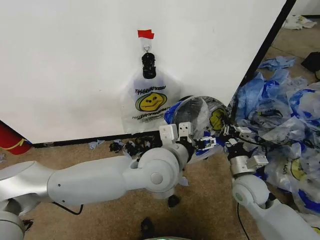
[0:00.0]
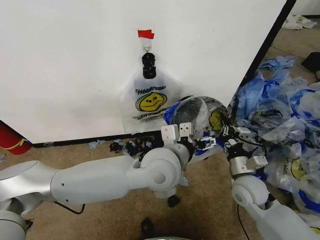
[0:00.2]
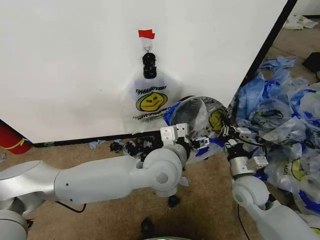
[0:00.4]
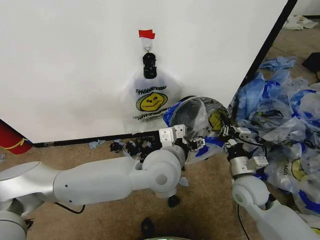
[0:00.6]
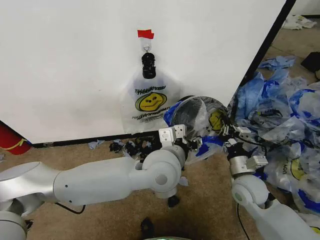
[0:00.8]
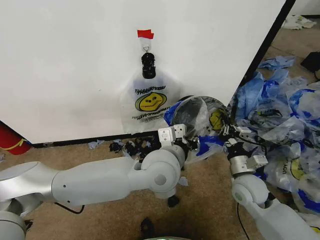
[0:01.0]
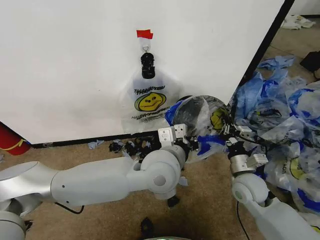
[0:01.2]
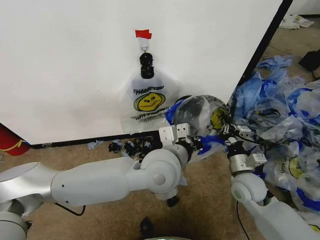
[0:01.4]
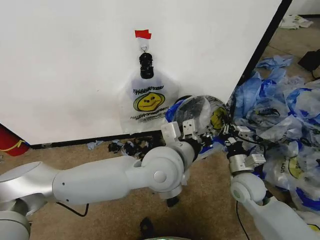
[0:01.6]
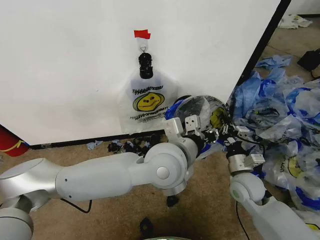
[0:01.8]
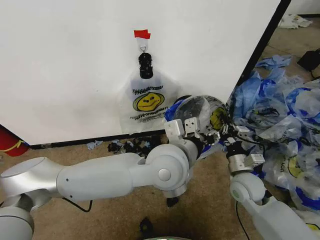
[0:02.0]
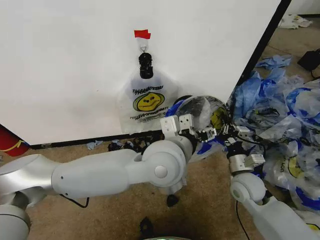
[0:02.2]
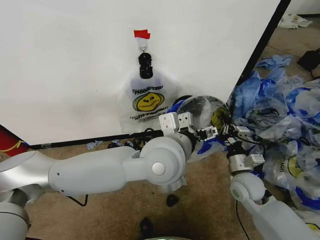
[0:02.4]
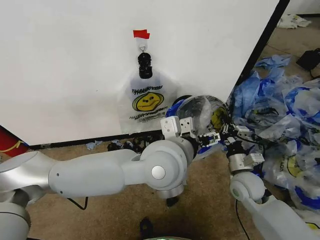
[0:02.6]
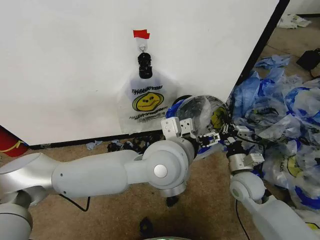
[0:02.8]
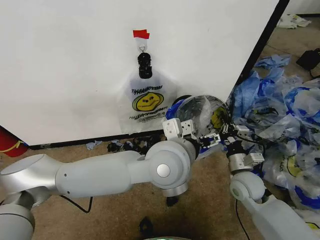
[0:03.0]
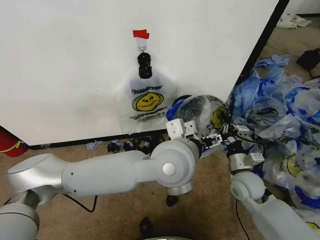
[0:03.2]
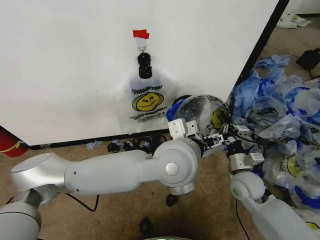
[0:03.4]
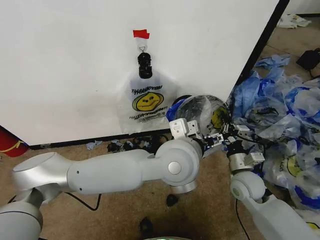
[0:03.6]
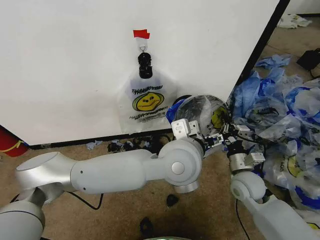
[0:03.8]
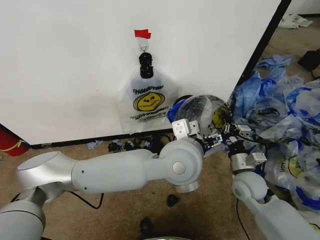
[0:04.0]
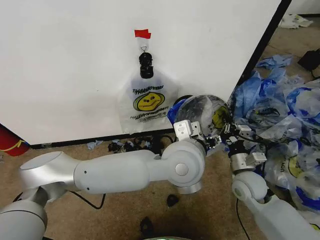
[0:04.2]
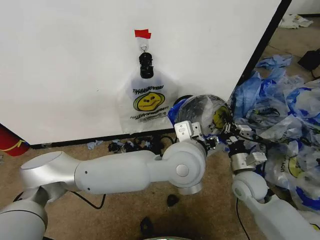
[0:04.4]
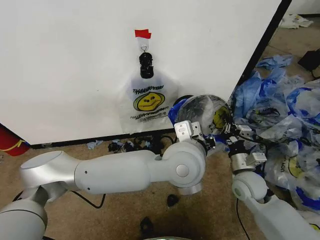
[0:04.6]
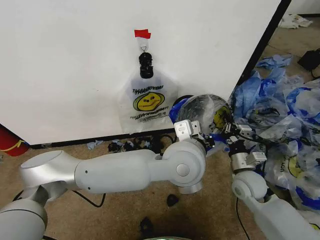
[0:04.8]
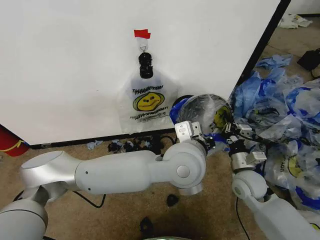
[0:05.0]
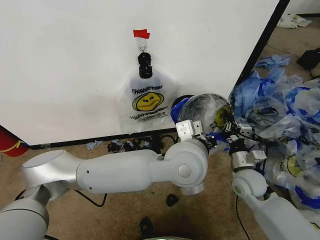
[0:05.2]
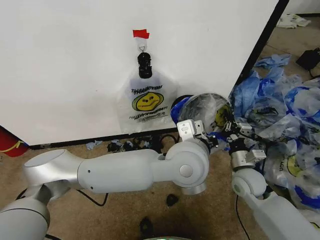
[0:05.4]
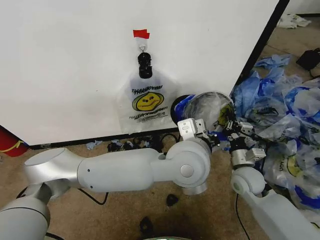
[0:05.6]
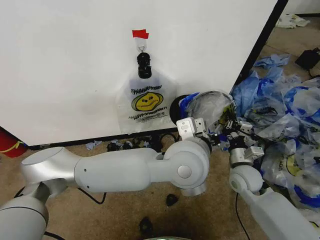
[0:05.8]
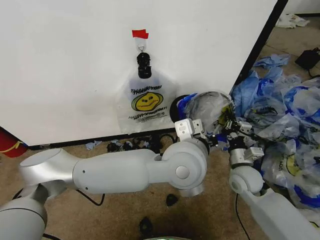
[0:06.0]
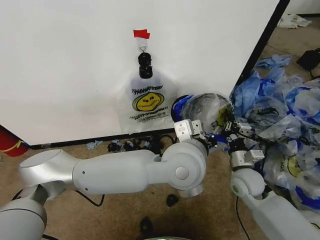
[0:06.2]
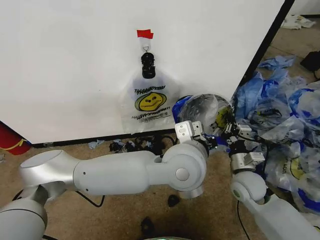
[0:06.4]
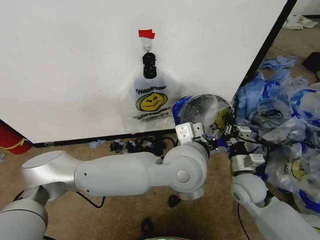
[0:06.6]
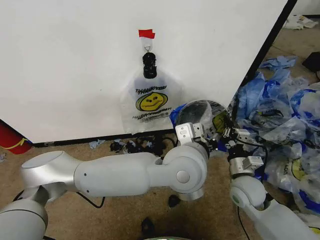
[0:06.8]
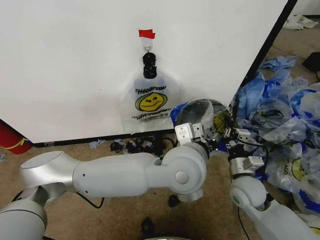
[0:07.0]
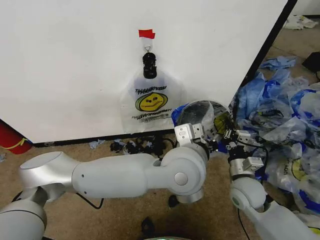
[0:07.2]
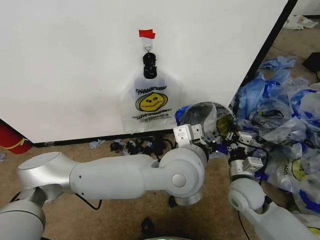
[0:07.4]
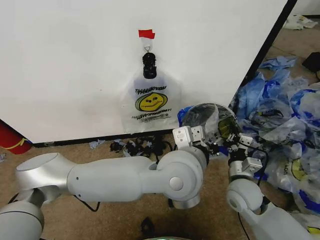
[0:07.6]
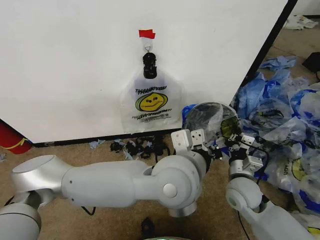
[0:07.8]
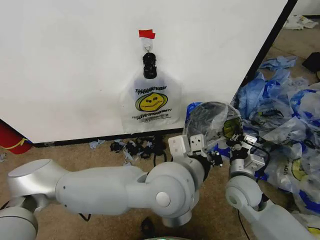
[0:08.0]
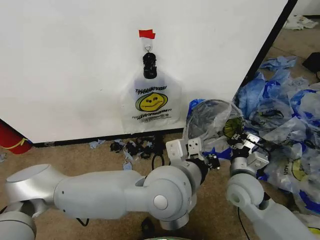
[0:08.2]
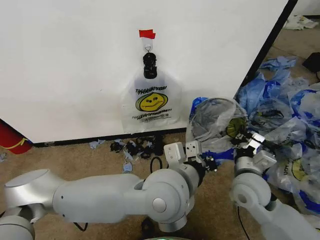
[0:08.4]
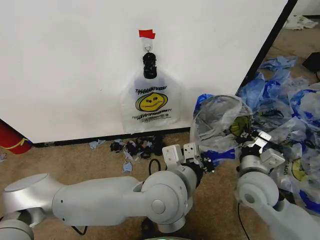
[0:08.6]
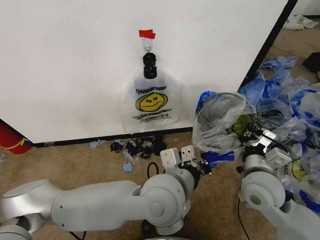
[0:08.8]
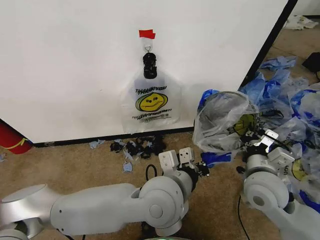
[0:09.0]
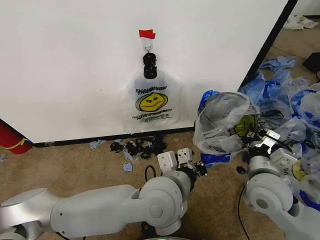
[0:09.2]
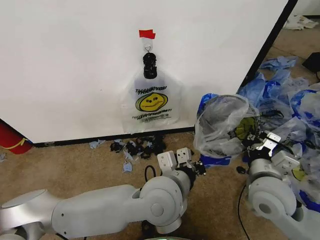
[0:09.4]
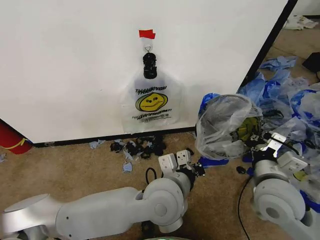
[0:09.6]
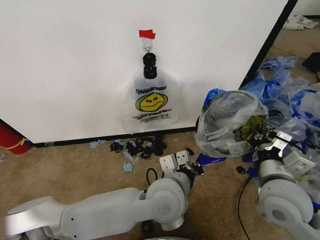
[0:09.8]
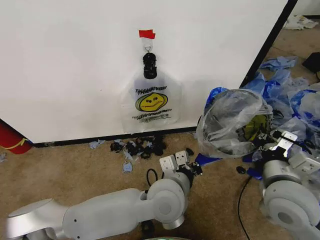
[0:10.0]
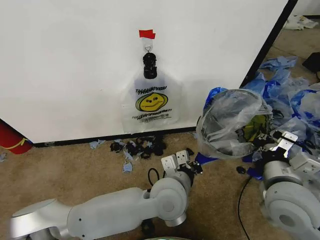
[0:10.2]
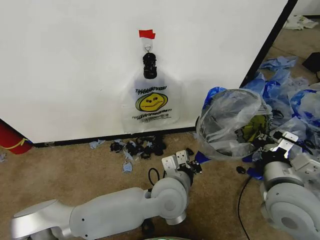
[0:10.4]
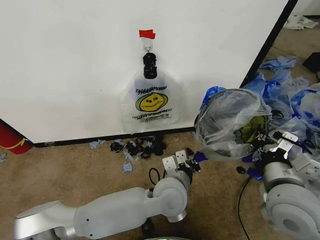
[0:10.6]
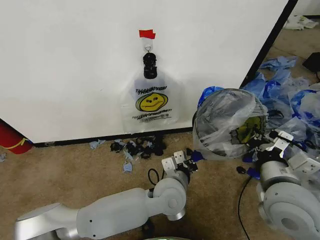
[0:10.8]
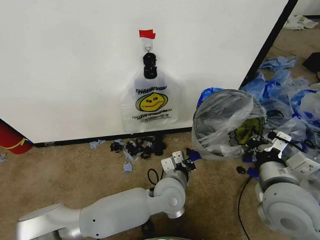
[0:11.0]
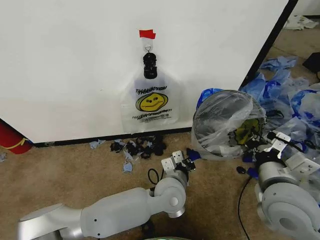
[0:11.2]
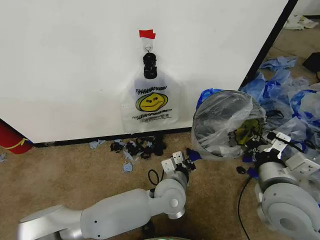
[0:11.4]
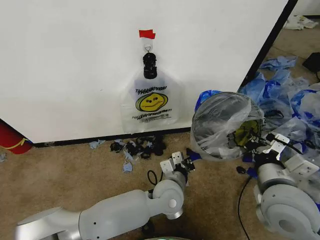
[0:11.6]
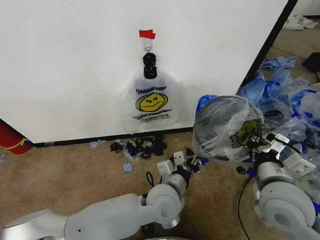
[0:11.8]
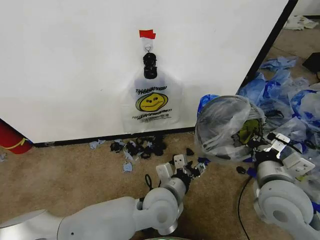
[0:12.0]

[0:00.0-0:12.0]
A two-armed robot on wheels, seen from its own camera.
Task of the whole recording: Pick up the garbage bag from the wall and place it over the trash bin.
0:00.0 to 0:01.6: The left gripper closes its fingers.
0:01.6 to 0:03.0: The left gripper opens.
0:03.0 to 0:04.4: The left gripper closes up.
0:04.4 to 0:06.0: The left gripper closes up.
0:06.0 to 0:07.6: The right gripper travels backward by roughly 5 cm.
0:07.6 to 0:09.0: The right gripper goes roughly 10 cm upward, while the left gripper shifts about 5 cm downward.
0:09.0 to 0:10.4: The left gripper is displaced downward by some 10 cm, while the right gripper travels backward by roughly 5 cm.
0:10.4 to 0:12.0: The left gripper opens up.

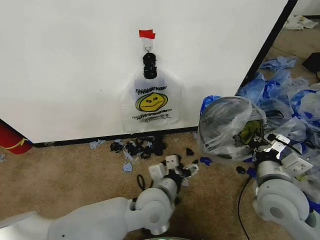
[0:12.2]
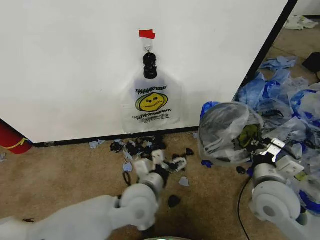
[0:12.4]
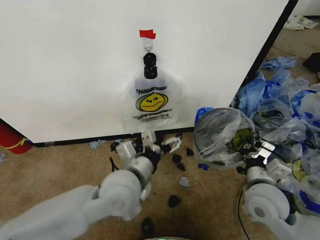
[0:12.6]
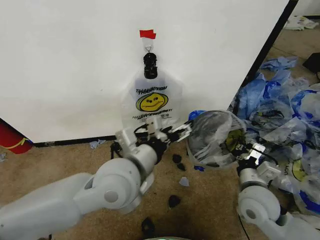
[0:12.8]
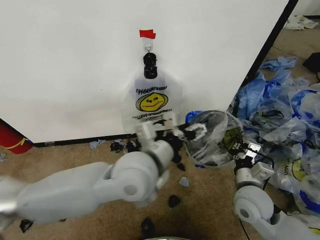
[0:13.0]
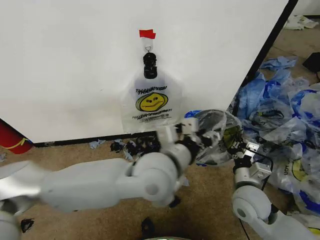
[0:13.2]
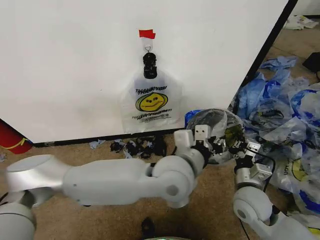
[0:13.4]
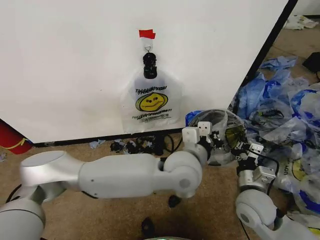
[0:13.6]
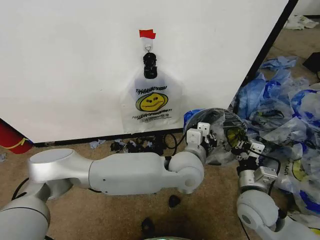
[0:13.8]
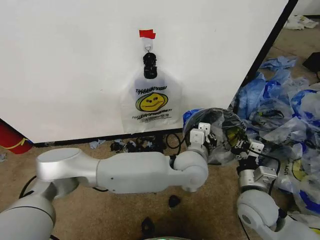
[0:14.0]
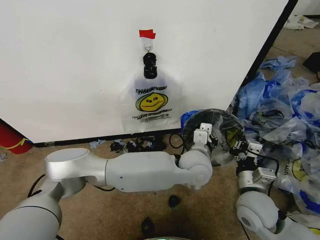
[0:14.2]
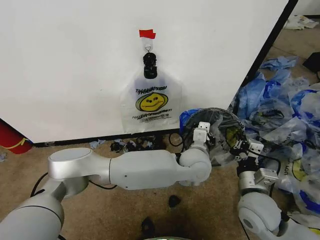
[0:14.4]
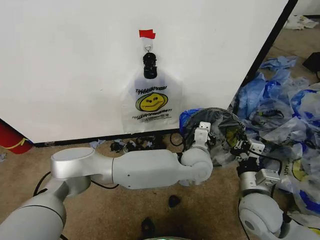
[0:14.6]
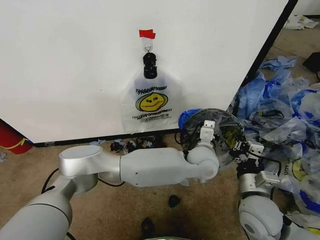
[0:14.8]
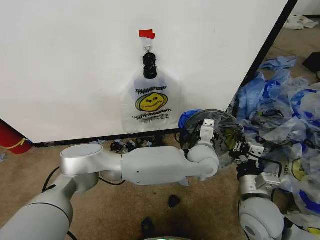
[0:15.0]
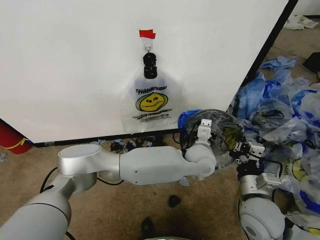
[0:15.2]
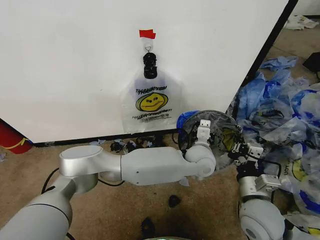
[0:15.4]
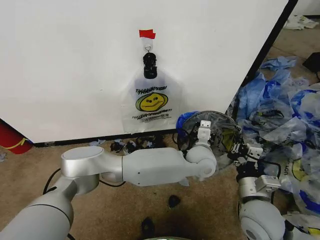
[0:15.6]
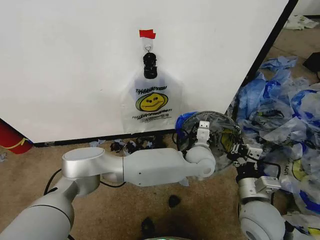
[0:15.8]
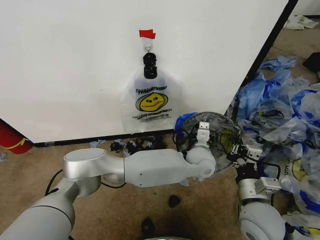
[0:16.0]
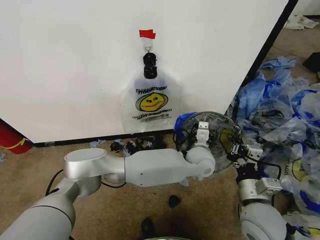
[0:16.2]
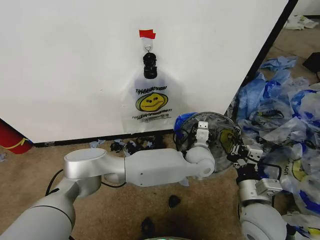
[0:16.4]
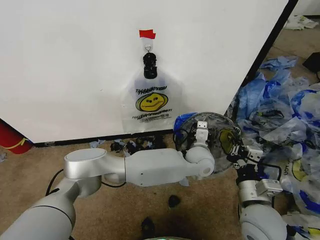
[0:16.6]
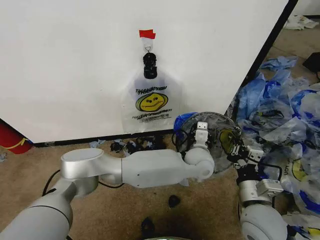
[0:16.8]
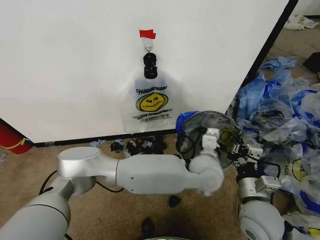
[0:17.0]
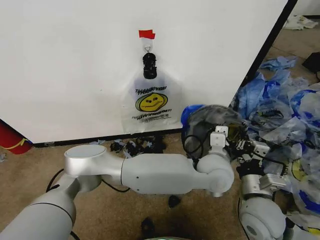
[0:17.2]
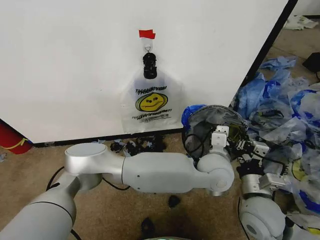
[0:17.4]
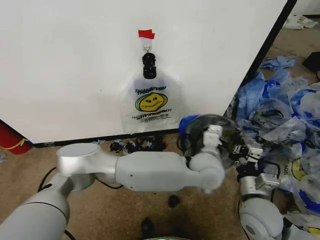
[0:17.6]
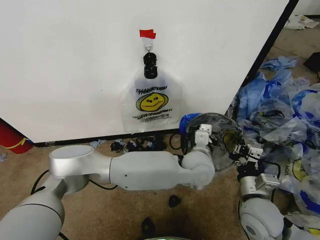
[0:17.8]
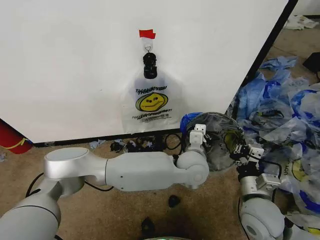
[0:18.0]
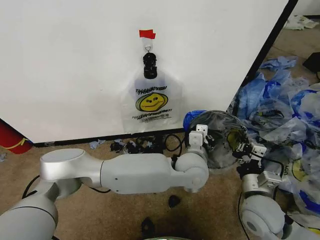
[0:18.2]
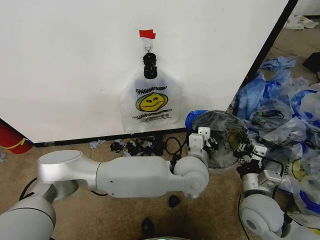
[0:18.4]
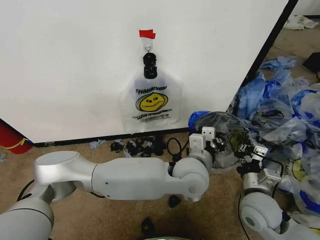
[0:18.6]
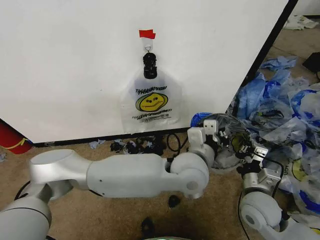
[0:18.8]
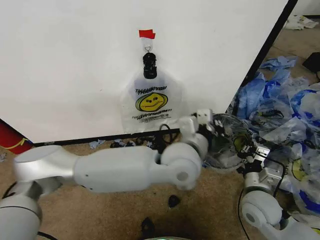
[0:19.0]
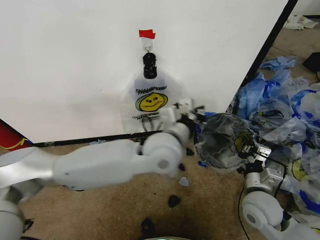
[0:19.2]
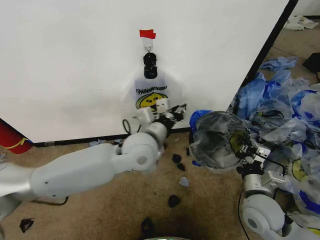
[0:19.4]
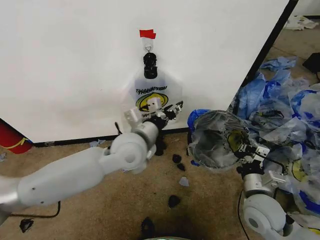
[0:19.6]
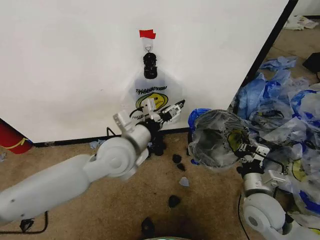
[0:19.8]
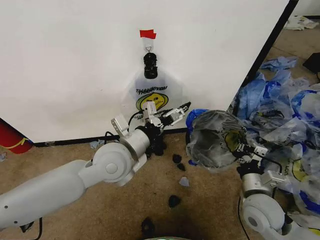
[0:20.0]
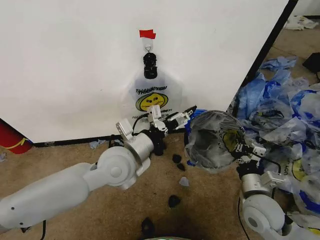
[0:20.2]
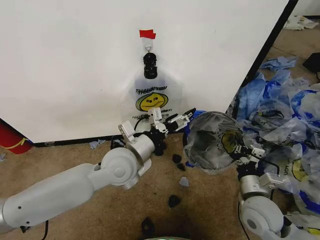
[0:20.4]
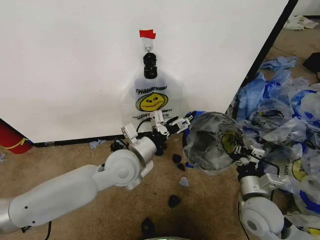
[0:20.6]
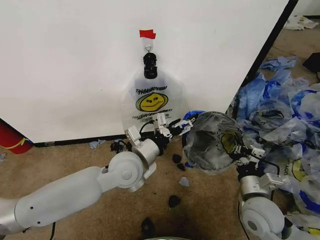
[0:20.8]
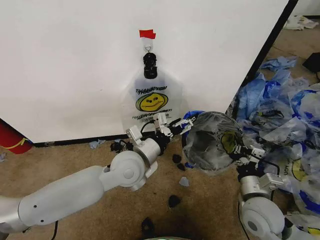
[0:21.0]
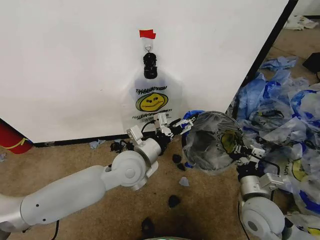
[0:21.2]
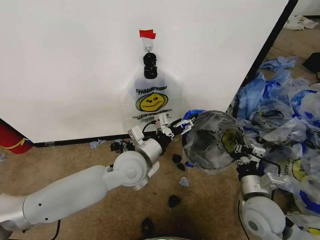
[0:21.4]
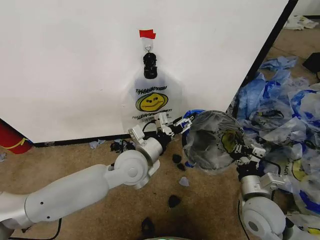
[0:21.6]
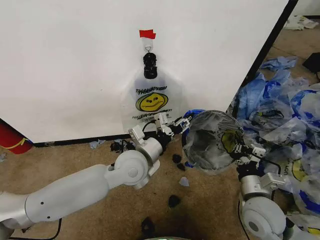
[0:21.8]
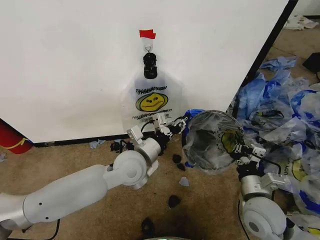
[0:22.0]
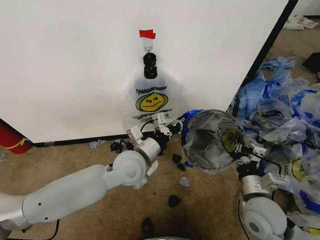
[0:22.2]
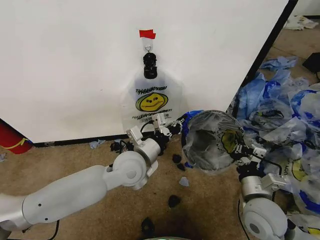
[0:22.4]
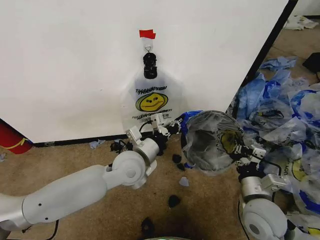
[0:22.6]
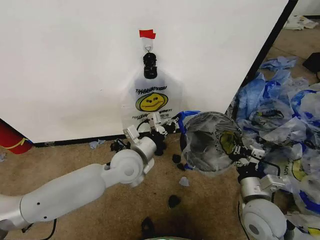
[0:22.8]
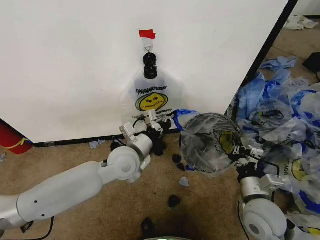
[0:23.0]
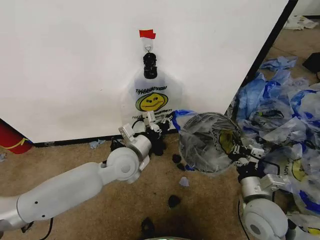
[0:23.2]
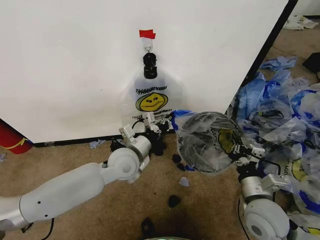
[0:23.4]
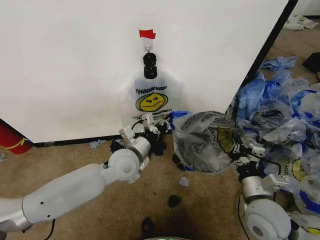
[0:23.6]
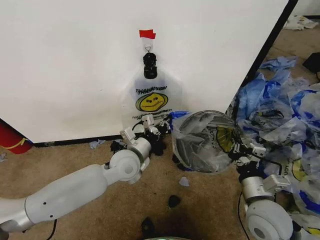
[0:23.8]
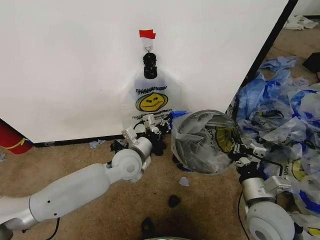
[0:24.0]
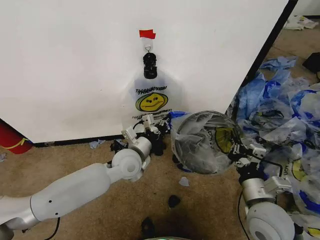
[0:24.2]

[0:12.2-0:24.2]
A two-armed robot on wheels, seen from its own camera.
Task of the whole recording: Pick up the garbage bag from the wall and place it over the trash bin.
0:12.2 to 0:13.8: The left gripper is displaced to the right, upward and forward by approximately 15 cm, and closes; the right gripper heads downward, covering roughly 10 cm.
0:13.8 to 0:15.2: The left gripper is displaced forward and to the right by roughly 10 cm.
0:15.2 to 0:16.6: The grippers make only small movements.
0:16.6 to 0:18.2: The left gripper heads backward, covering approximately 5 cm.
0:18.2 to 0:19.8: The left gripper moves to the left, roughly 20 cm, and opens up.
0:19.8 to 0:21.2: The left gripper moves downward, approximately 5 cm.
0:21.2 to 0:22.6: The left gripper closes.
0:22.6 to 0:24.2: The left gripper moves roughly 5 cm.
